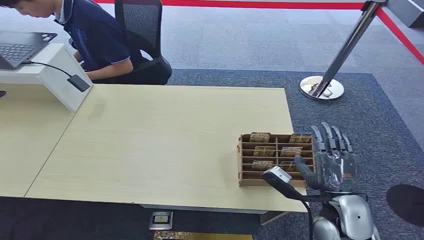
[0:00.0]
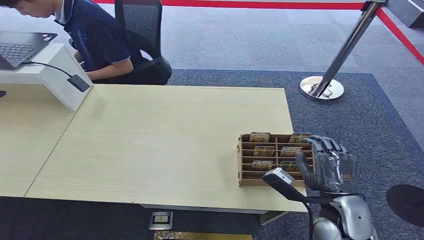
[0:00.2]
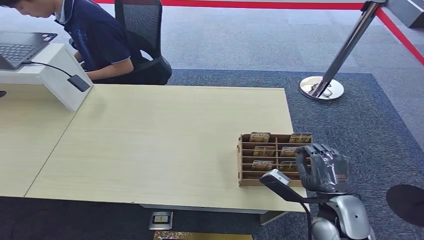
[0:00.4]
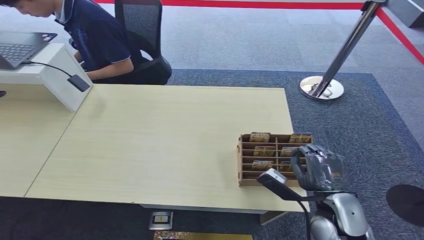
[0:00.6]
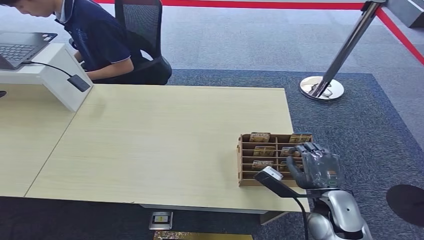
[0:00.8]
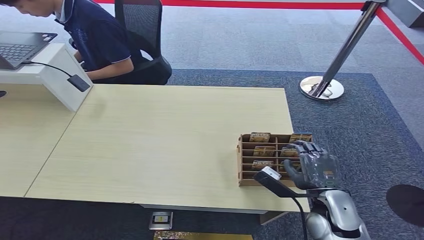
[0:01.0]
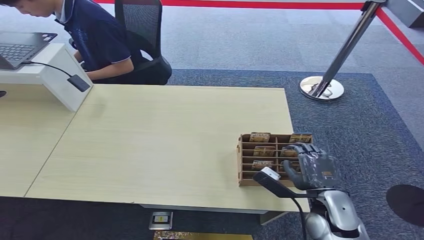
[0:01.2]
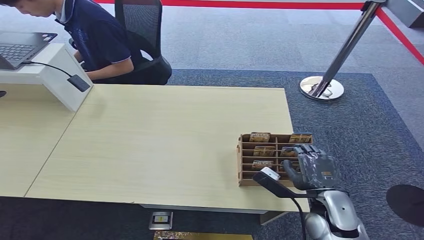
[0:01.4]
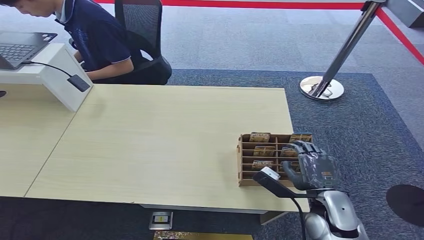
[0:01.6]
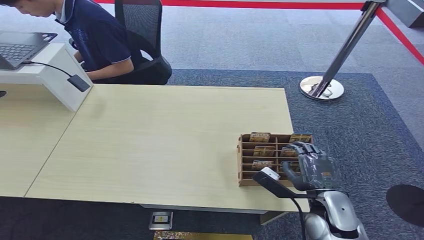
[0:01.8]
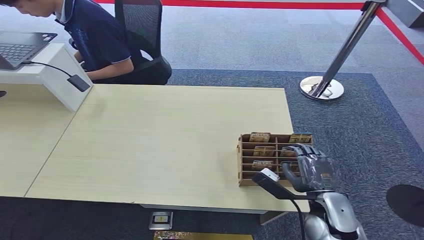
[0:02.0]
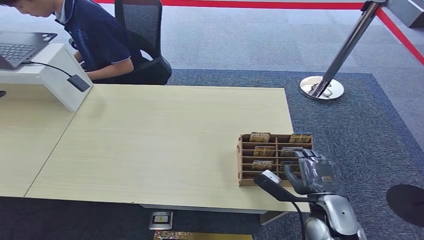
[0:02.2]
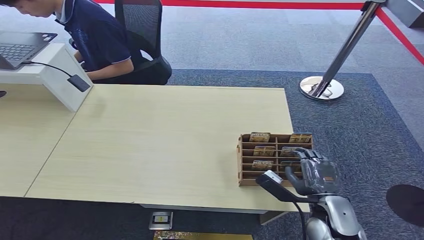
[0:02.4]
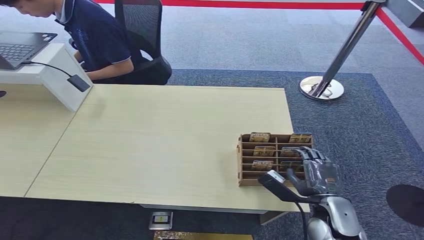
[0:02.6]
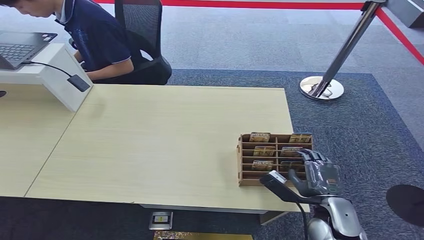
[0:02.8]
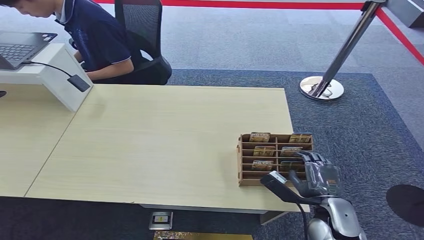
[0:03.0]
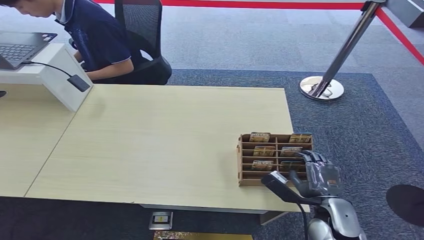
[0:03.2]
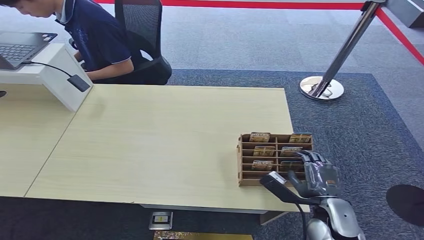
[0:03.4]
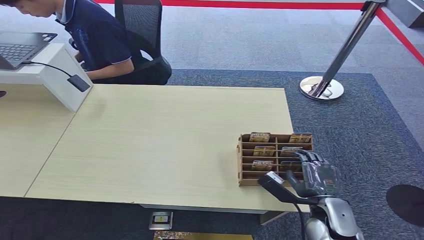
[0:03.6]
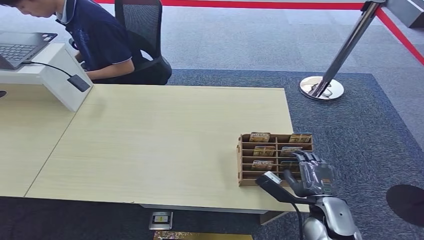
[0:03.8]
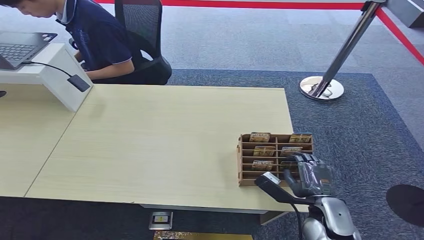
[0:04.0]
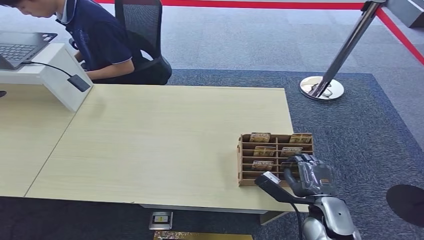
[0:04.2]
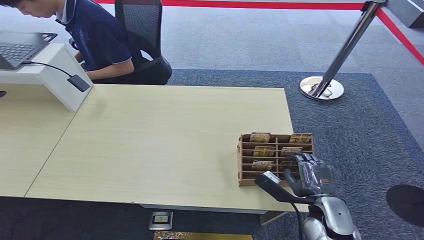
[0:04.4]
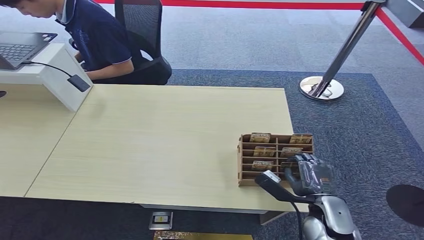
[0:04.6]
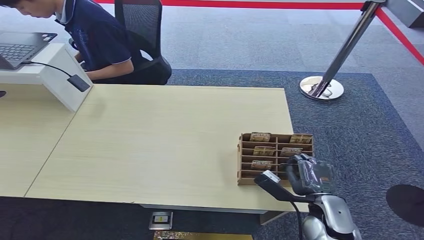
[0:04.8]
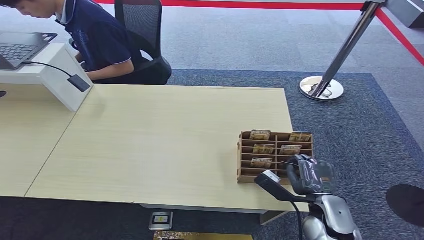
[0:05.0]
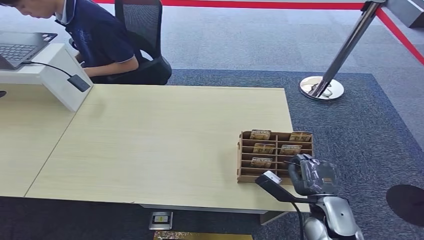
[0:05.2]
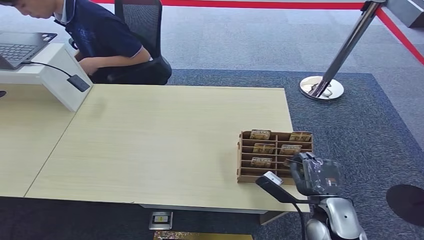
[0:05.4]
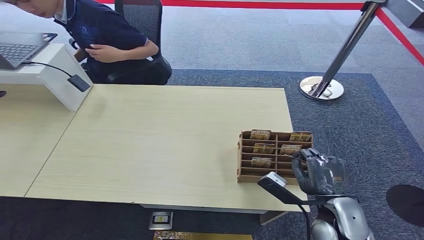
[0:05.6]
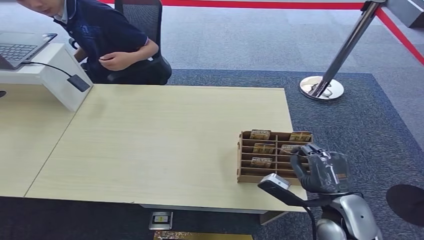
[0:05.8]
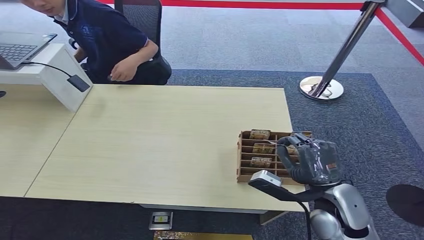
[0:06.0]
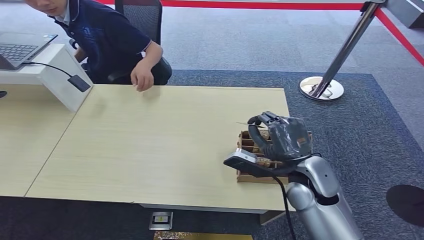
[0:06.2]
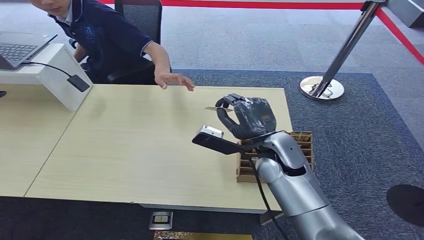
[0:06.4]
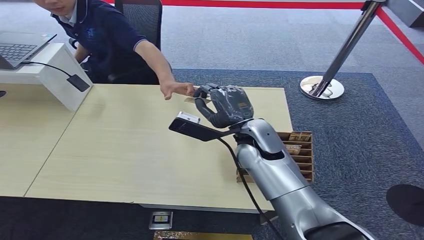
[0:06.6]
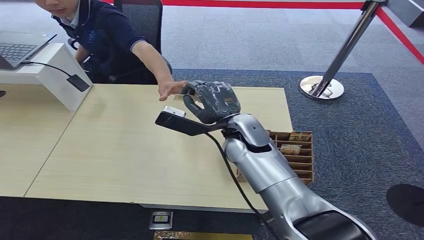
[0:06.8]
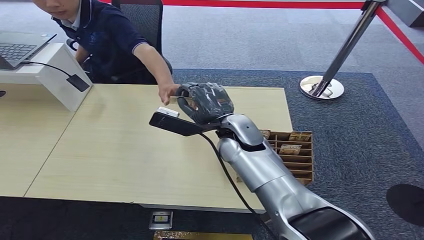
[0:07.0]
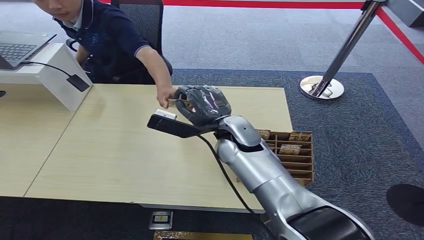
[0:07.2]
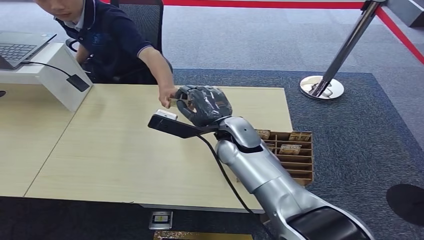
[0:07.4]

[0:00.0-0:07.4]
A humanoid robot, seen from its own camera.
Step, 0:00.0 to 0:06.2: Pick up the key card from the card box.
Step, 0:06.4 to 0:07.4: Hand the key card to the target.
0:01.4 to 0:03.0: There are only small adjustments of the hands.
0:03.0 to 0:04.4: Both hands stay about where they are.
0:04.4 to 0:06.0: The right hand travels upward by some 10 cm.
0:06.0 to 0:07.4: The right hand heads to the left and forward, covering some 25 cm.
